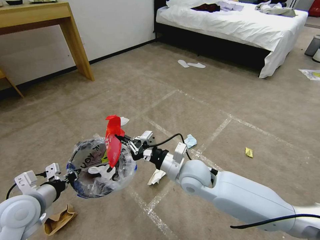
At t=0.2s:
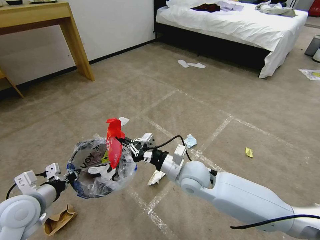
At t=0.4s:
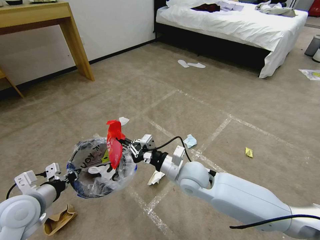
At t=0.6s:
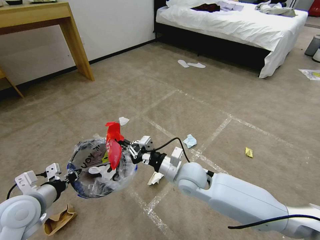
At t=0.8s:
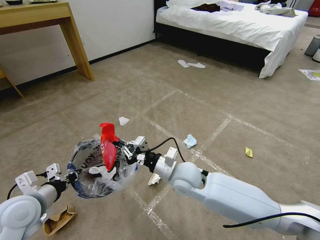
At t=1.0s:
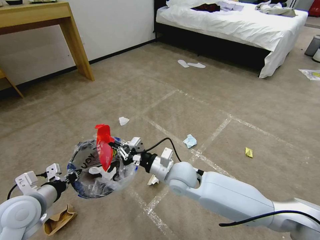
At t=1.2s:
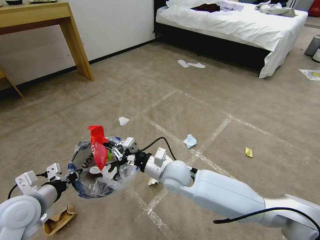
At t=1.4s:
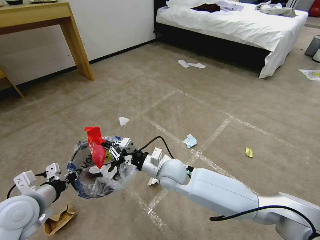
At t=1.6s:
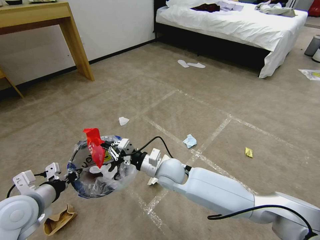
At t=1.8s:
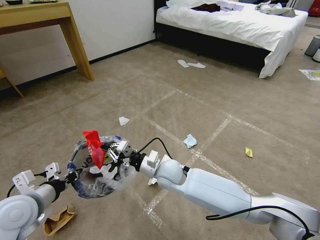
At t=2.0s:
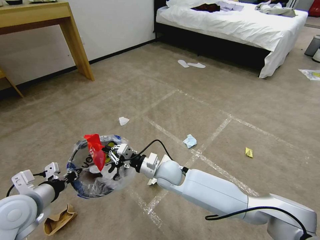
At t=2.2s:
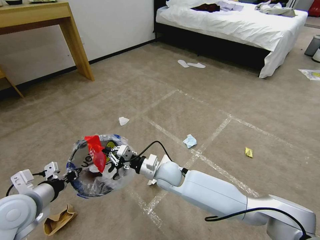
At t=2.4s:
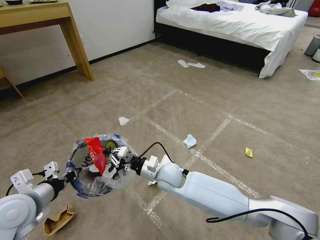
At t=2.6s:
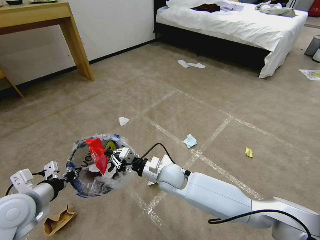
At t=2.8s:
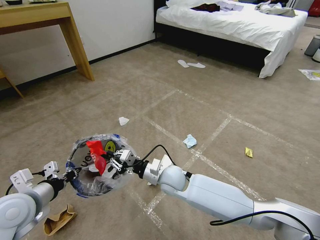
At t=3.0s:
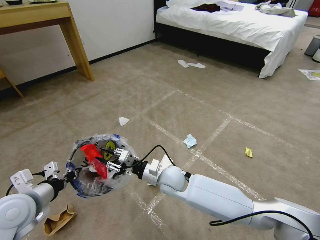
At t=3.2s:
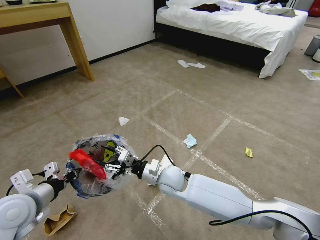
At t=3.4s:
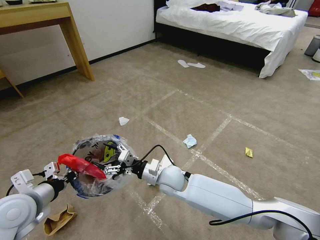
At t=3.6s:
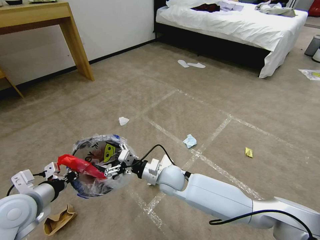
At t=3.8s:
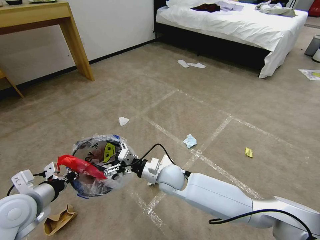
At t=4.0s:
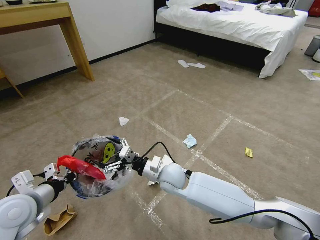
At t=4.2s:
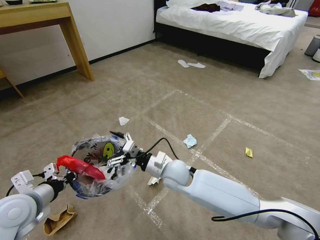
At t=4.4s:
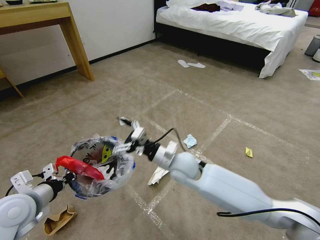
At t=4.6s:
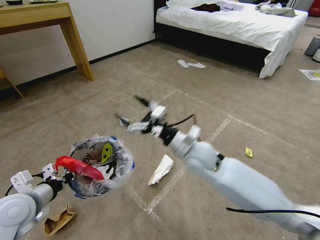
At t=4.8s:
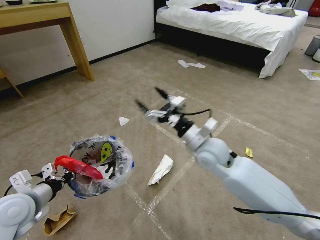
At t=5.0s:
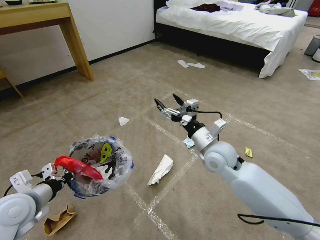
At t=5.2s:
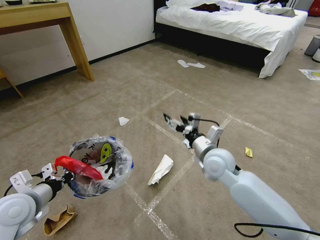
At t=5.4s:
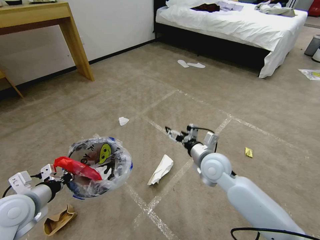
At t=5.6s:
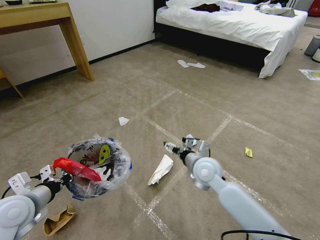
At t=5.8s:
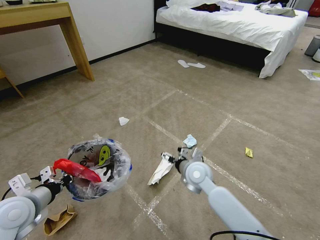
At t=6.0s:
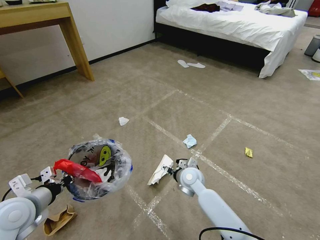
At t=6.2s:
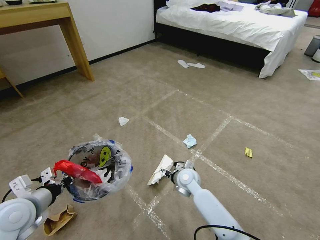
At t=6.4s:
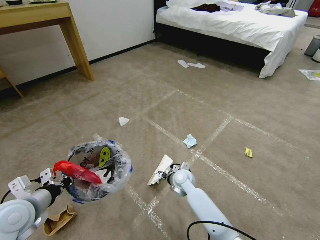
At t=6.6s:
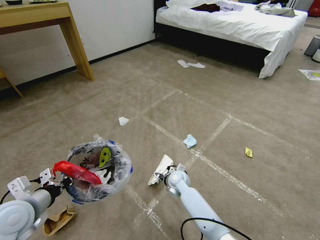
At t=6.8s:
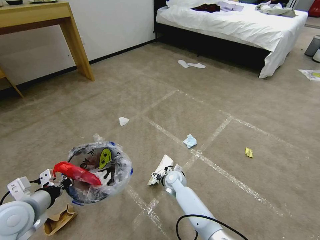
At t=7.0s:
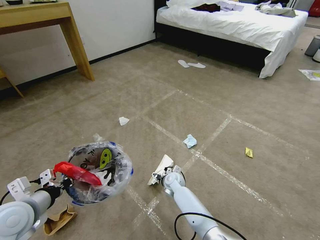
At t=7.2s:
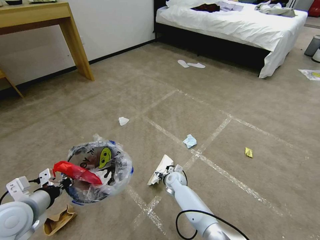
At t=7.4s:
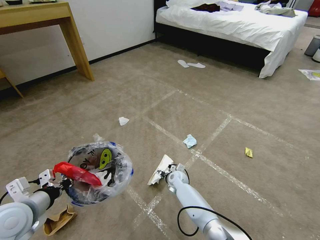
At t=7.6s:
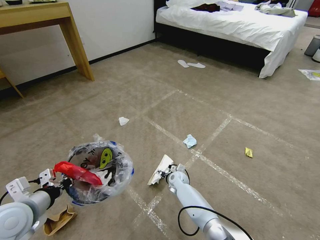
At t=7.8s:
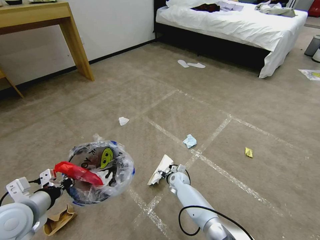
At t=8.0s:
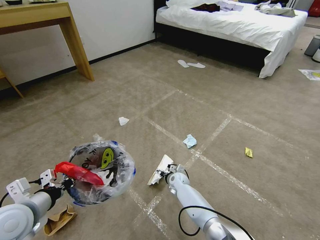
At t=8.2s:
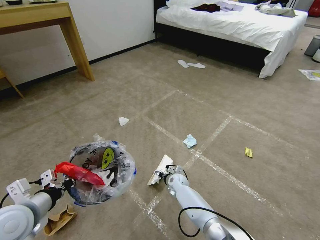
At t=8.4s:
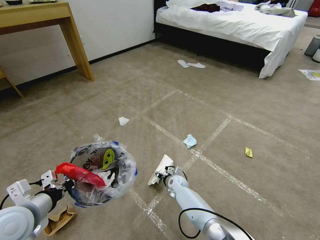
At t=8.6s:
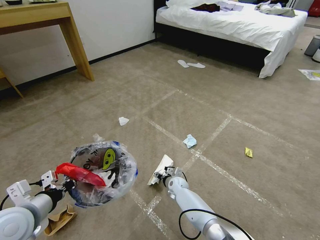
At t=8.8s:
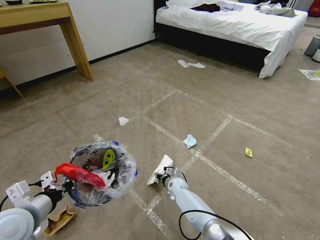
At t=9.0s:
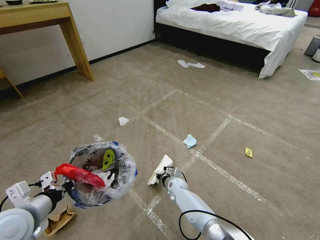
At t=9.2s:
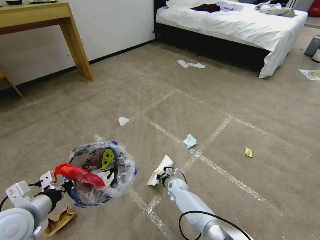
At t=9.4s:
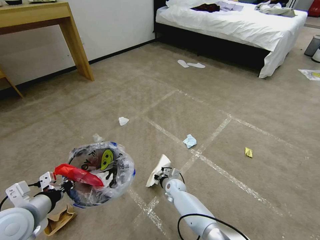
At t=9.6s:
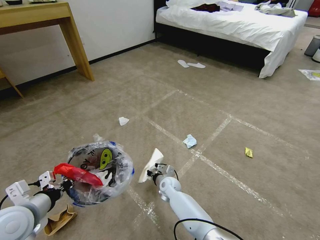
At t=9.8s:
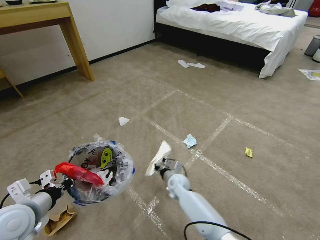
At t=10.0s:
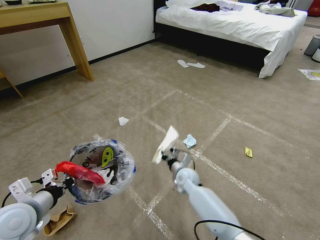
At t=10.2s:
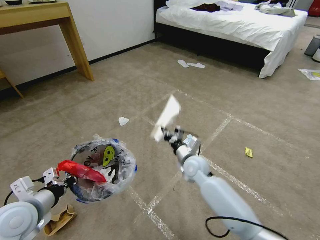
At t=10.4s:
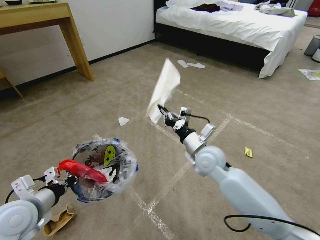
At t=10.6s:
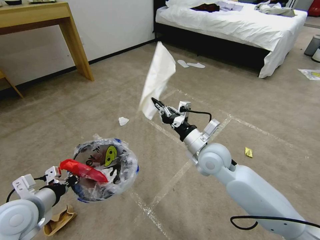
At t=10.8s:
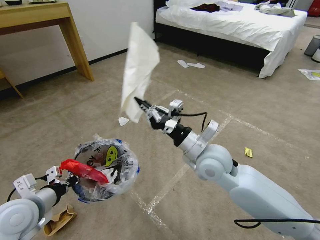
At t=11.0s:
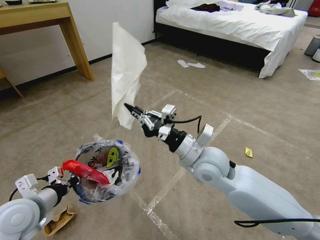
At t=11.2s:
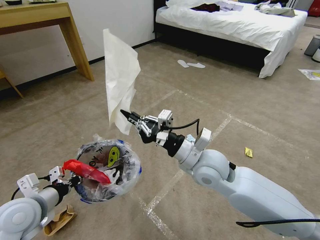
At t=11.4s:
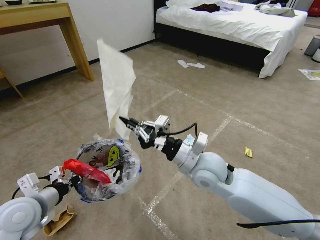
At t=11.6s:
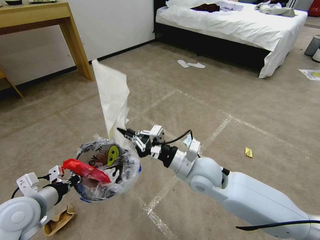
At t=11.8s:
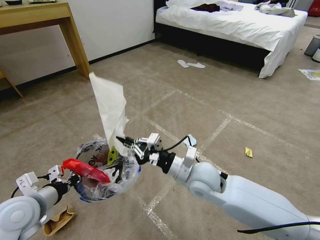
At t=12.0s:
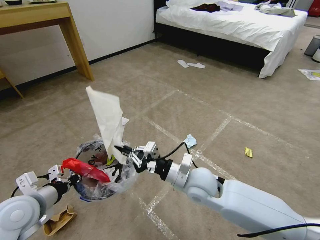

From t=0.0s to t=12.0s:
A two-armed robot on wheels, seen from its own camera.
Task of the whole recording: Pick up the trash bin and place the garbage on the floor into it.
From t=0.0s to t=1.6s: The right gripper goes approximately 10 cm to the left and downward.
From t=1.6s to t=3.0s: The right gripper opens.
From t=3.0s to t=4.4s: The right gripper shifts roughly 5 cm upward, and opens.
From t=4.4s to t=6.0s: The right gripper shifts approximately 15 cm downward and to the right.
From t=6.0s to t=7.6s: The right gripper goes about 15 cm downward and forward.
From t=7.6s to t=9.0s: The right gripper closes up.
From t=9.0s to t=10.4s: The right gripper shifts approximately 30 cm upward.
From t=10.4s to t=12.0s: The right gripper moves backward, roughly 10 cm.

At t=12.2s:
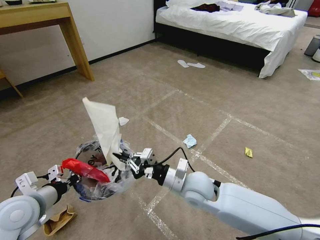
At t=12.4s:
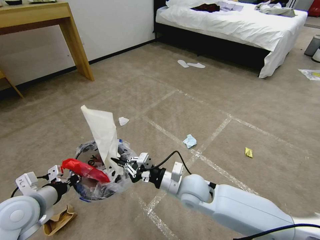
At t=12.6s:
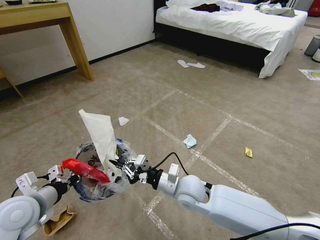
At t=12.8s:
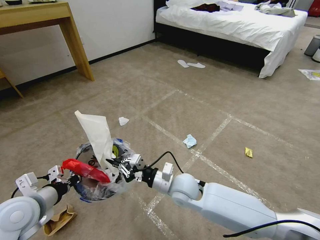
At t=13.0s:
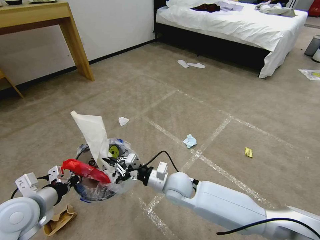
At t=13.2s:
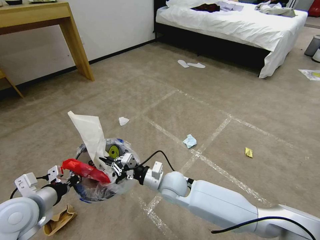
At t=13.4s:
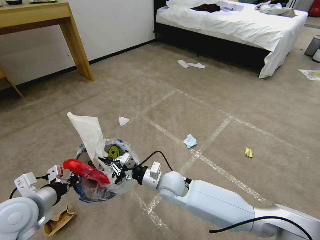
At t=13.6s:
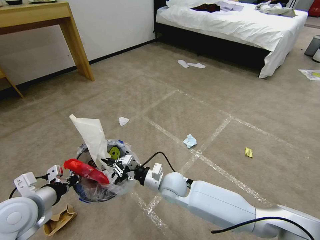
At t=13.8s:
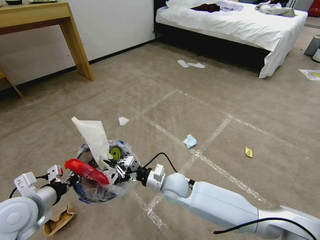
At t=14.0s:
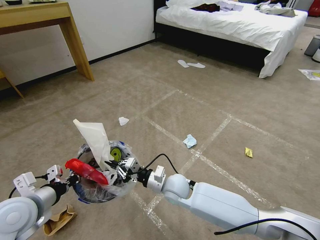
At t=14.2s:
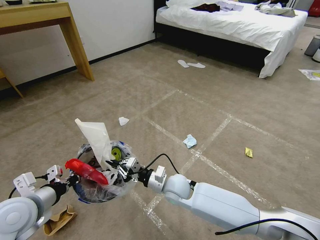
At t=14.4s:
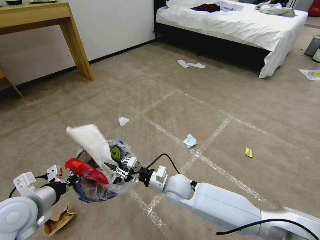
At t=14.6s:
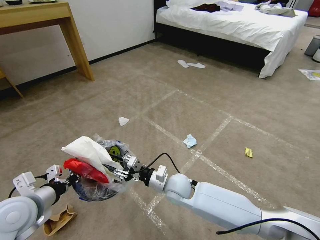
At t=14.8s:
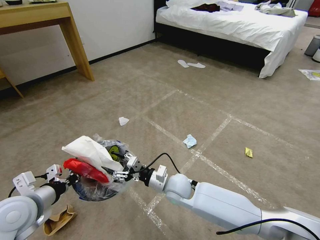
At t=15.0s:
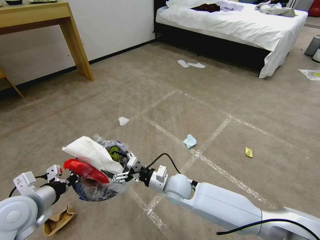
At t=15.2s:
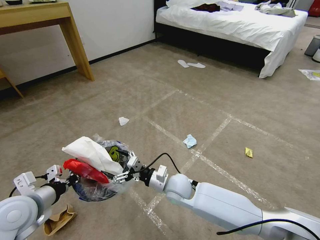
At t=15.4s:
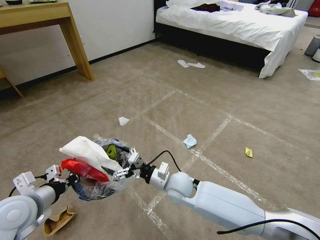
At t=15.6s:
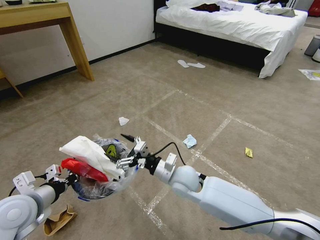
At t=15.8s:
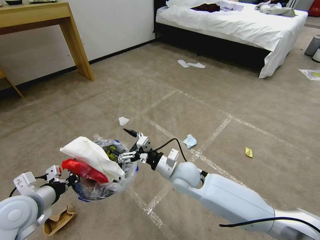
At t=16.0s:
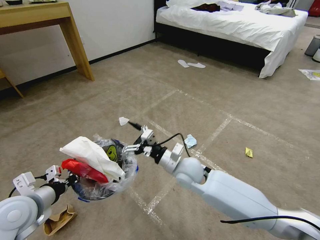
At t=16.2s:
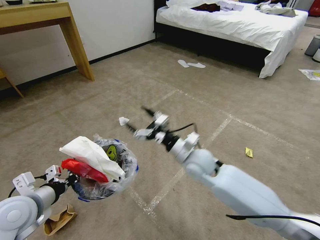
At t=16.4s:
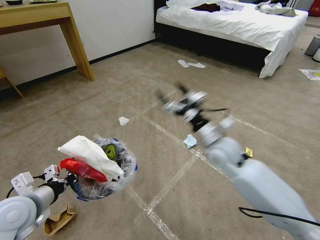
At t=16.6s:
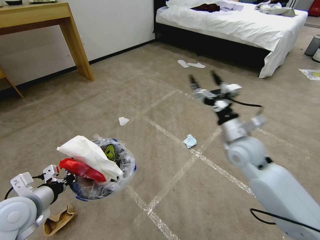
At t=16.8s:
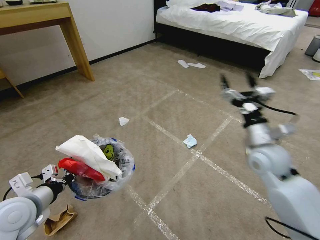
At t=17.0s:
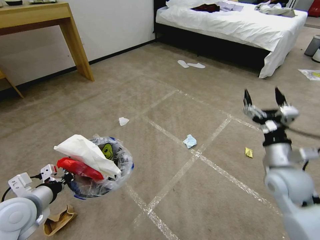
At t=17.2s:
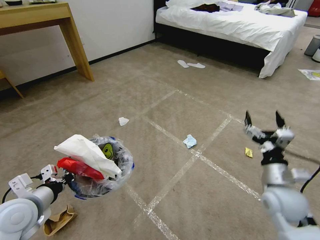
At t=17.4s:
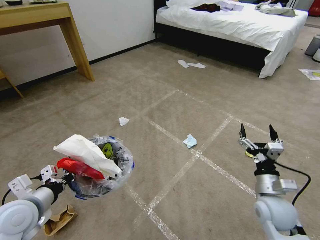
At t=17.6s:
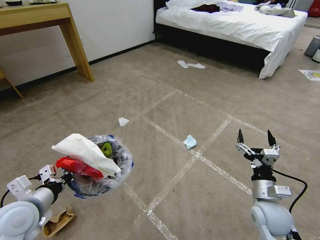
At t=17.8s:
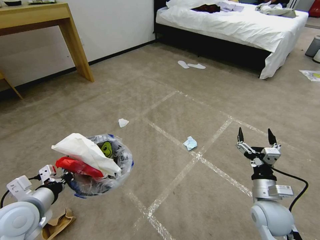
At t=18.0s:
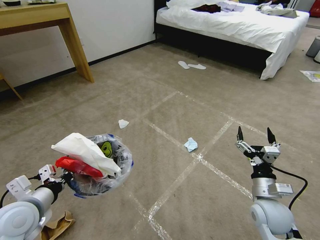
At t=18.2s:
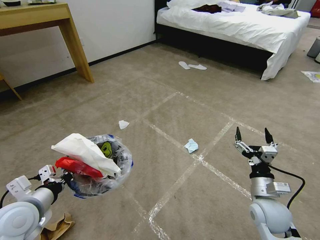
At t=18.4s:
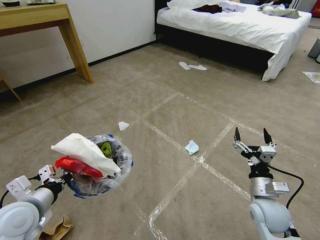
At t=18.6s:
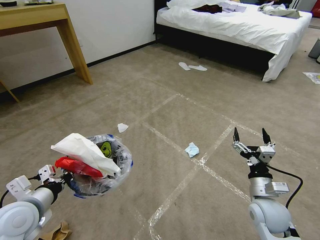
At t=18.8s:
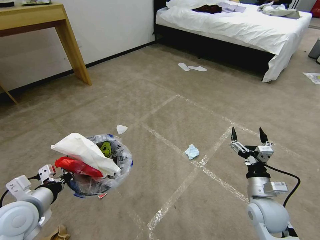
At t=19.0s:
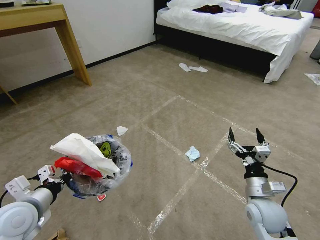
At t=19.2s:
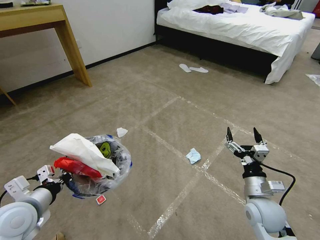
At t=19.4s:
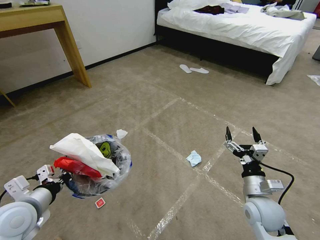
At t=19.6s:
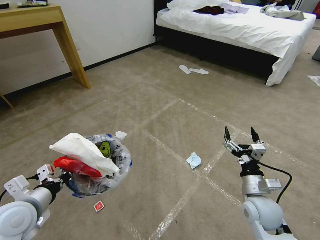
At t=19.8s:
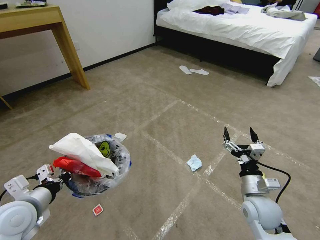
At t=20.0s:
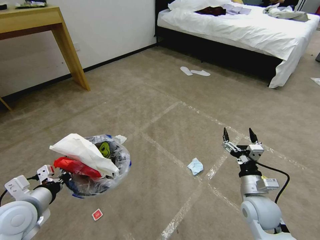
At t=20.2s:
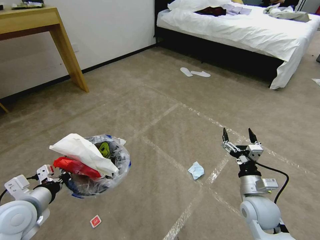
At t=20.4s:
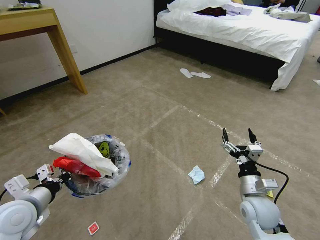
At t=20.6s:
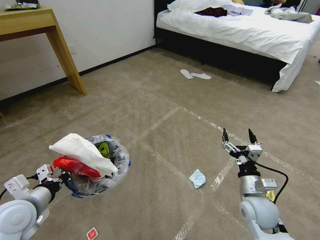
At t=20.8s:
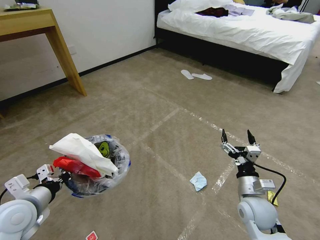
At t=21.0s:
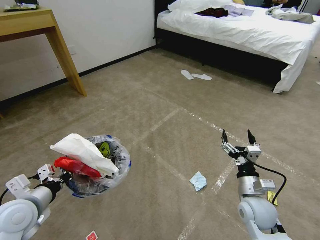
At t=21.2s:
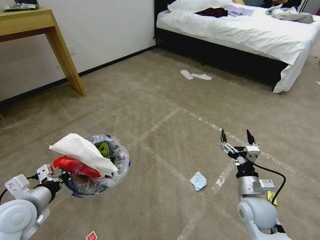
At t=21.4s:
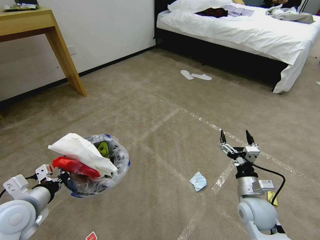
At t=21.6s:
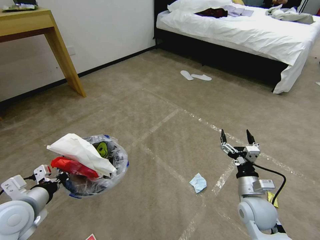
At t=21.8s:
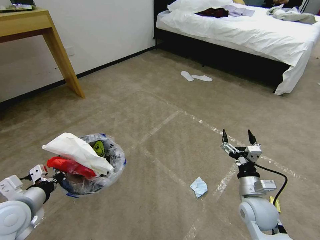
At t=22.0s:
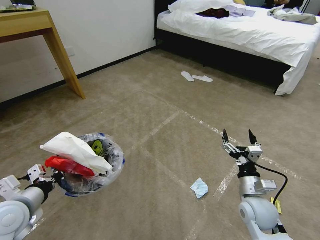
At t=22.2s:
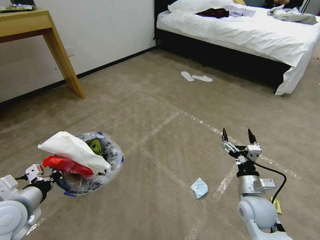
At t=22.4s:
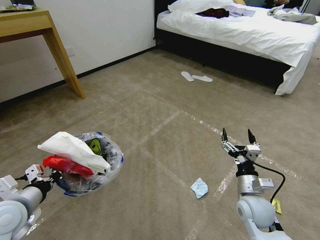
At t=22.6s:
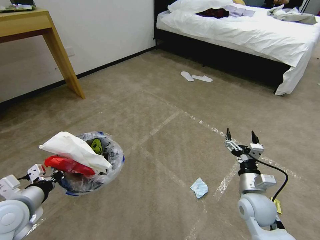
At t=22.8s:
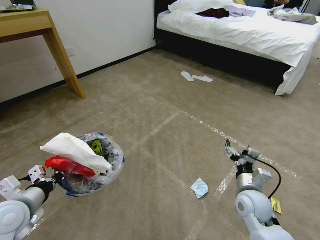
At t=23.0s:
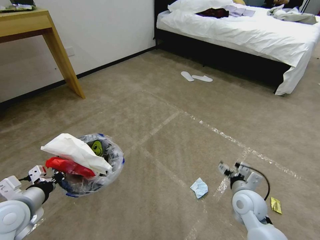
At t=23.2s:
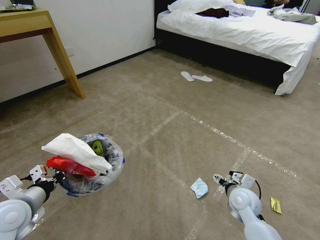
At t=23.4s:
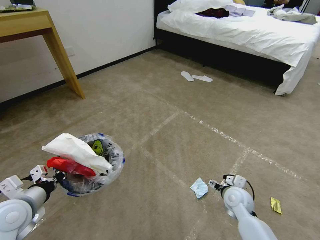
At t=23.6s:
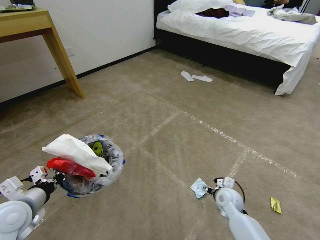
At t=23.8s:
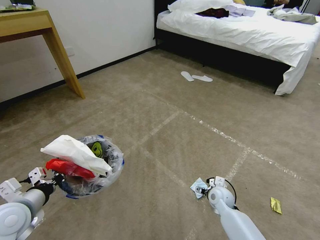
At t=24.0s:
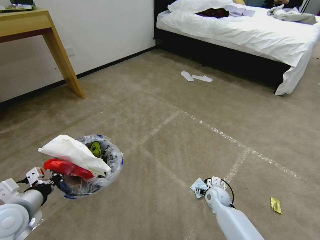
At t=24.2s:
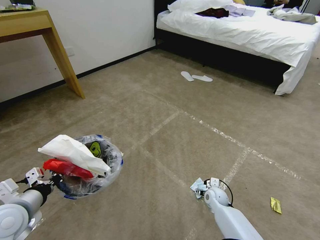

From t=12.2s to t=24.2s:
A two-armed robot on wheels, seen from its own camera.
Task of the whole recording: Pick up the trash bin and place the garbage on the floor into it.
From t=12.2s to t=13.8s: The right gripper heads downward and to the left, covering some 10 cm.
From t=13.8s to t=15.2s: The right gripper opens its fingers.
From t=15.2s to t=16.6s: The right gripper is displaced to the right and upward by about 25 cm.
From t=16.6s to t=18.2s: The right gripper shifts roughly 20 cm backward, downward and to the right.
From t=19.8s to t=21.2s: Neither gripper changes place.
From t=21.2s to t=22.6s: There are only small adjustments of the grippers.
From t=22.6s to t=24.2s: The right gripper heads downward and forward, covering about 20 cm.
